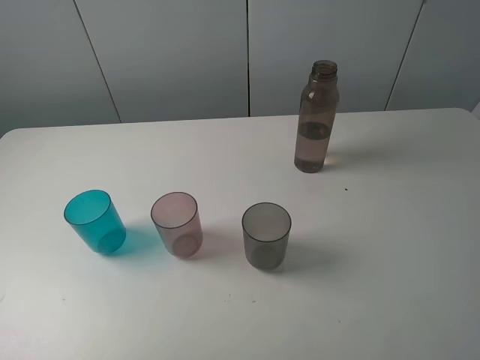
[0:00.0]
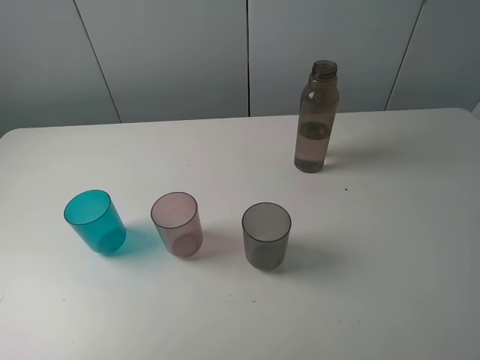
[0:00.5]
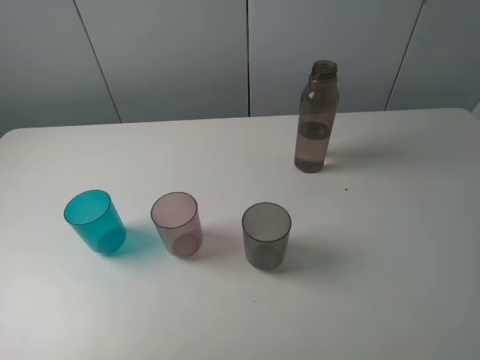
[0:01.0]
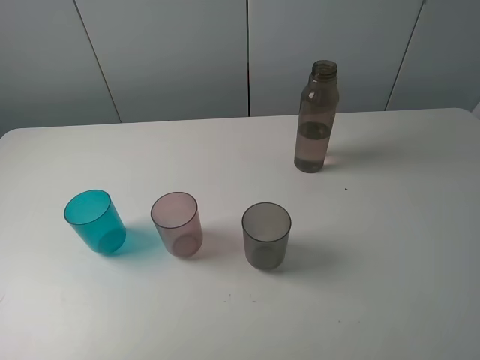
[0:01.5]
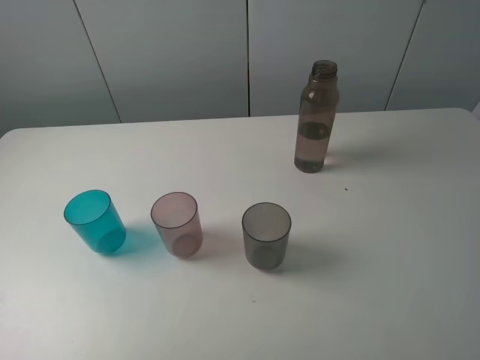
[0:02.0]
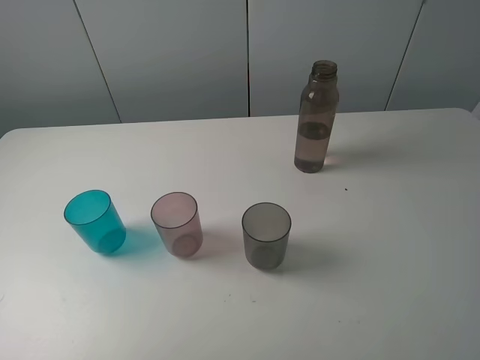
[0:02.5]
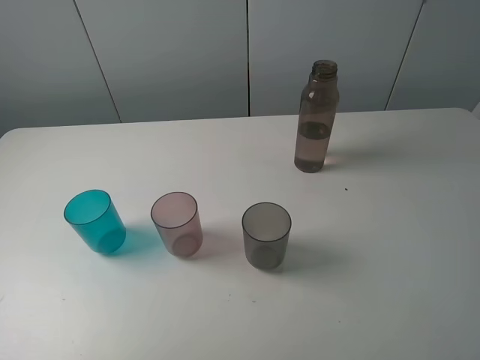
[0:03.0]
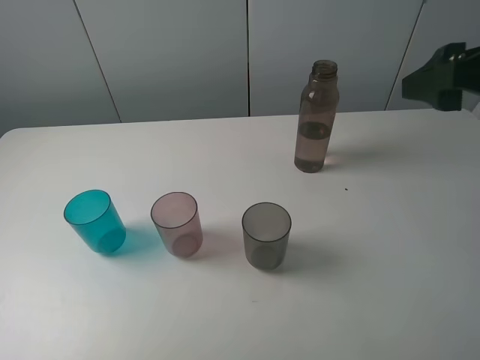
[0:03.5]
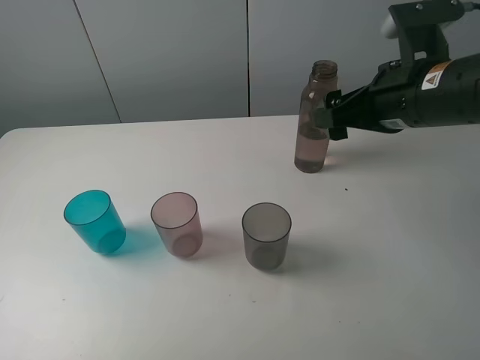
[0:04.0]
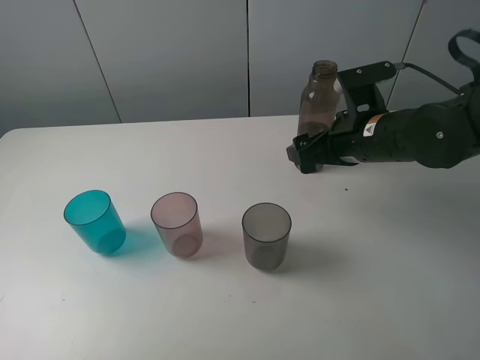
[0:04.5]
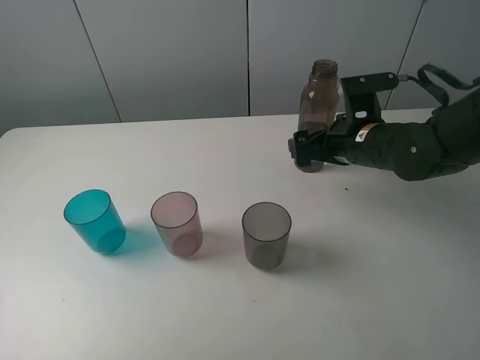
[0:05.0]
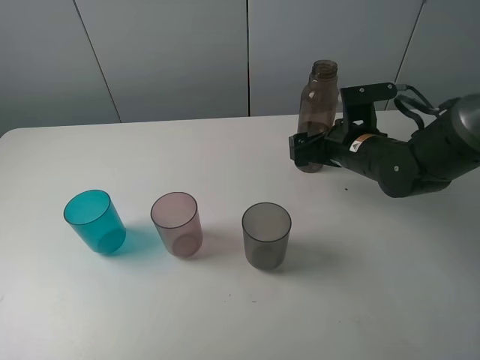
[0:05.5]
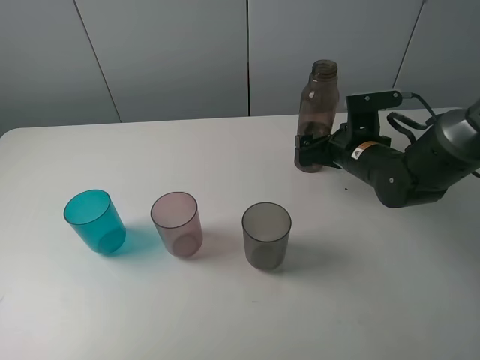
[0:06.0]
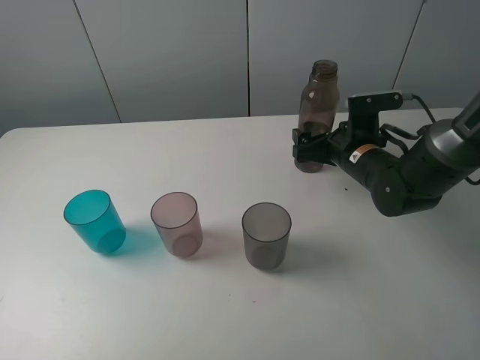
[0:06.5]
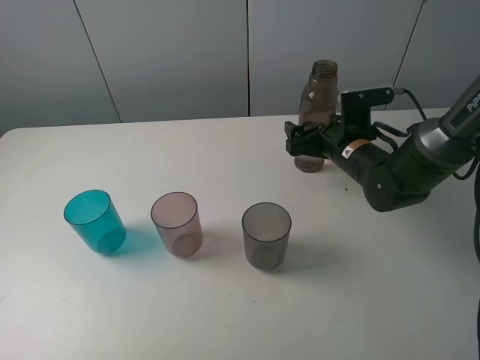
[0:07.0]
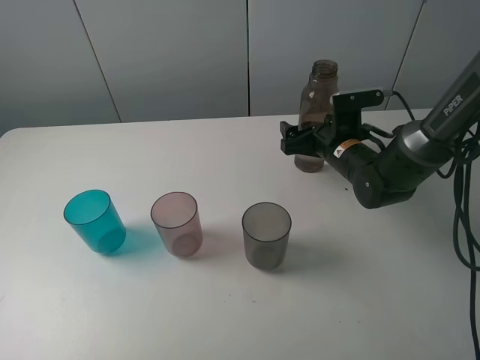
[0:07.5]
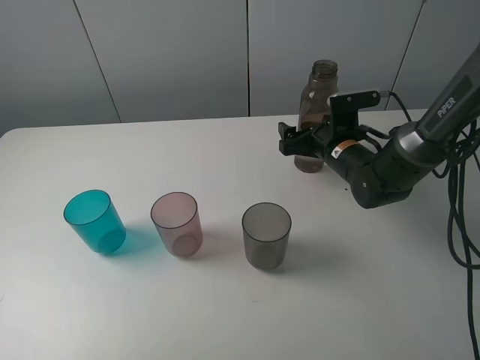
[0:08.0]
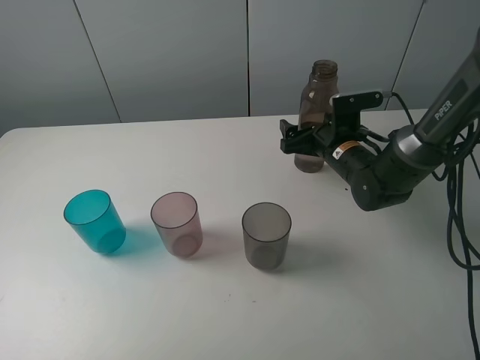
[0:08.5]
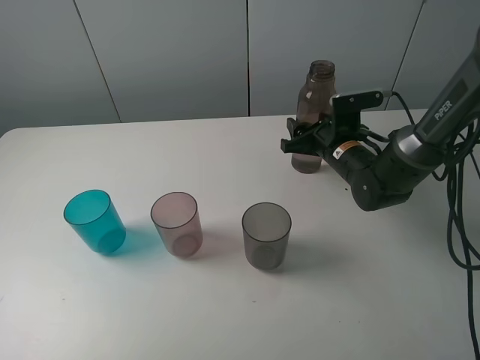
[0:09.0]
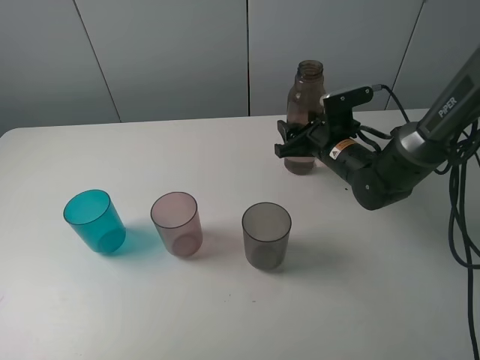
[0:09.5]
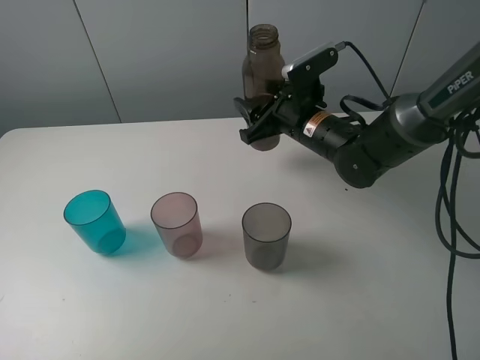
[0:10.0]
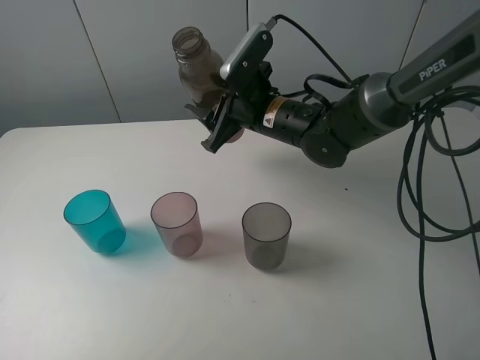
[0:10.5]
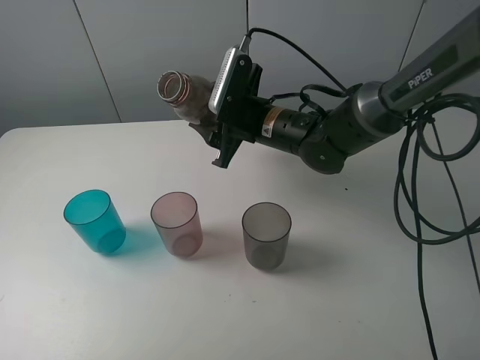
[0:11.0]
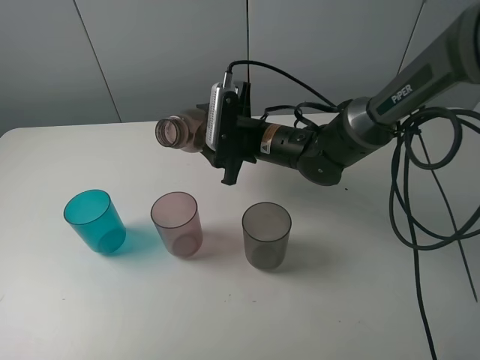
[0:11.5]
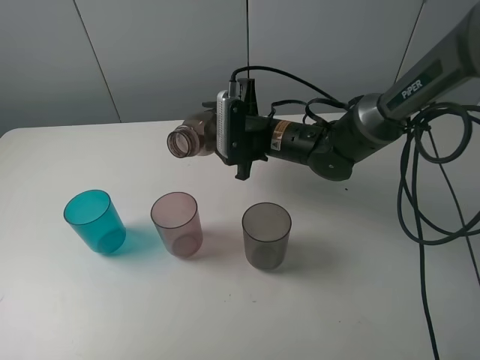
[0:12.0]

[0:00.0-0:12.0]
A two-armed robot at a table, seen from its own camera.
Task of the whole recording: pick up the bottle filled with water and pour water into the middle cup of the three cups.
Step, 0:00.0 to 0:09.0: Grasp the brown bottle with the right gripper.
0:00.0 to 0:02.0: Both grippers stay about where they are.
0:02.0 to 0:04.0: The right gripper is displaced forward and to the left by about 30 cm.
0:04.0 to 0:06.0: The right gripper goes roughly 15 cm downward and forward.
0:06.0 to 0:08.0: The grippers make only small movements.
0:08.0 to 0:10.0: The right gripper travels to the left and upward by about 10 cm, and closes its fingers.

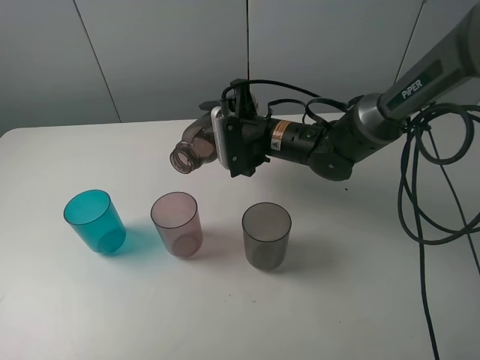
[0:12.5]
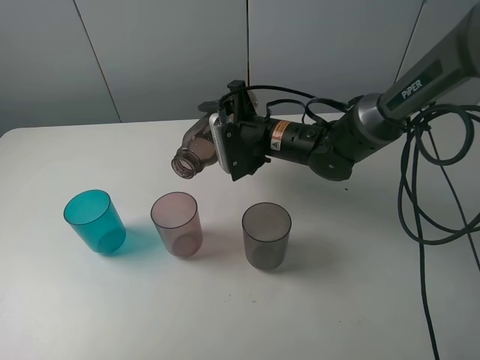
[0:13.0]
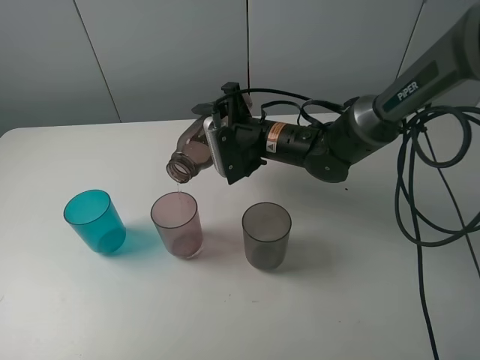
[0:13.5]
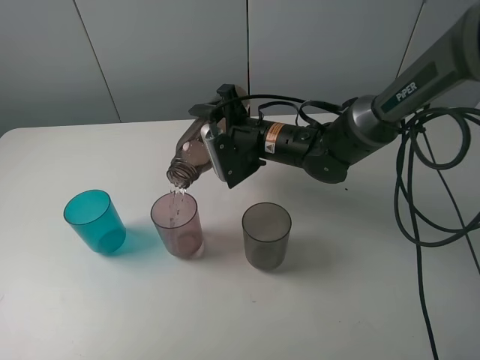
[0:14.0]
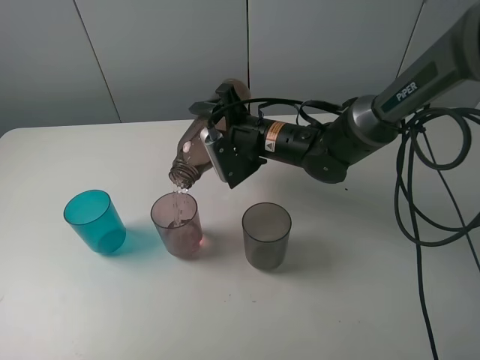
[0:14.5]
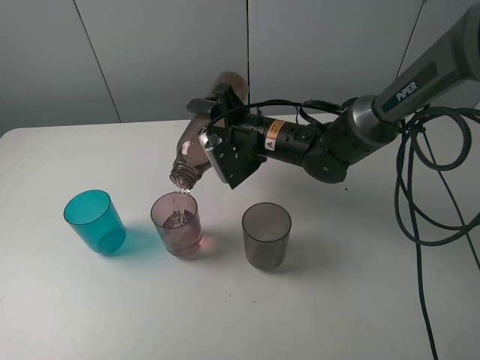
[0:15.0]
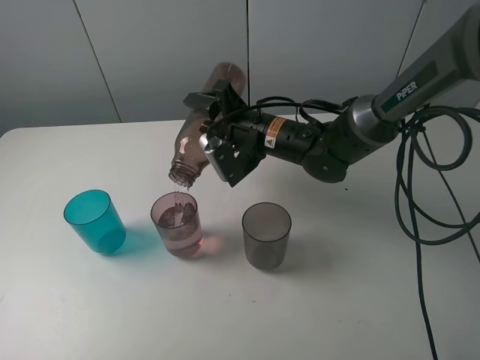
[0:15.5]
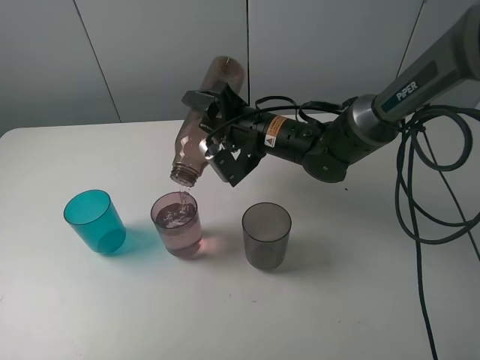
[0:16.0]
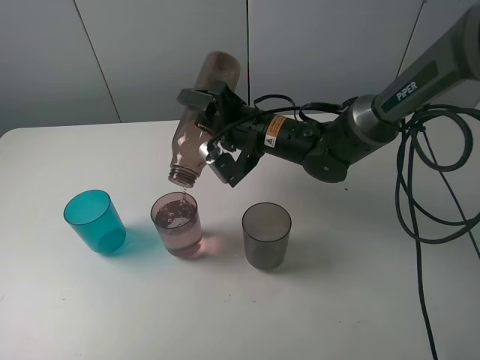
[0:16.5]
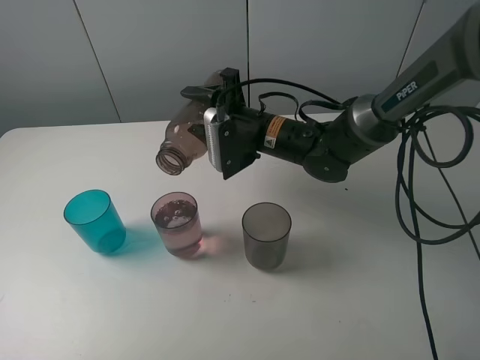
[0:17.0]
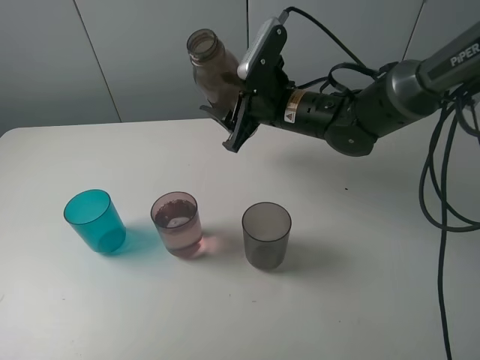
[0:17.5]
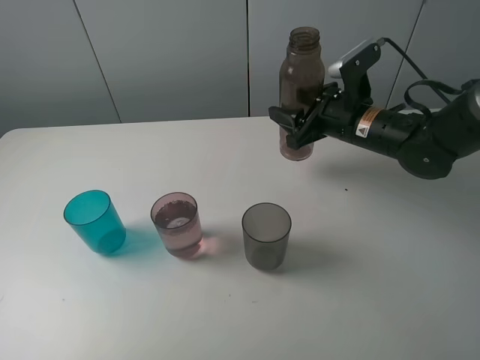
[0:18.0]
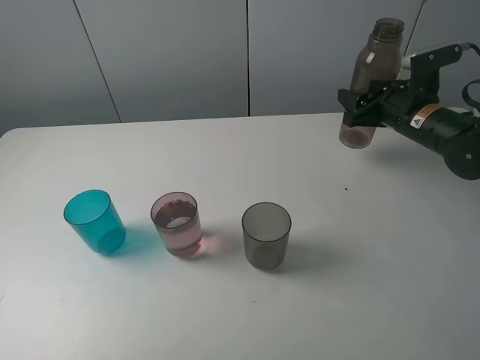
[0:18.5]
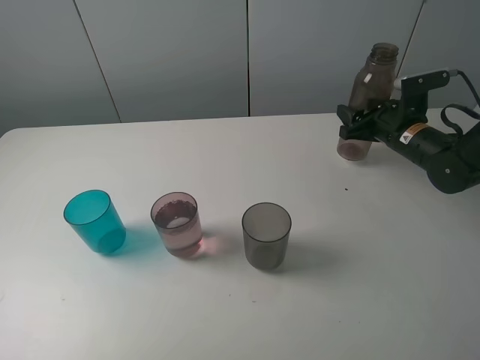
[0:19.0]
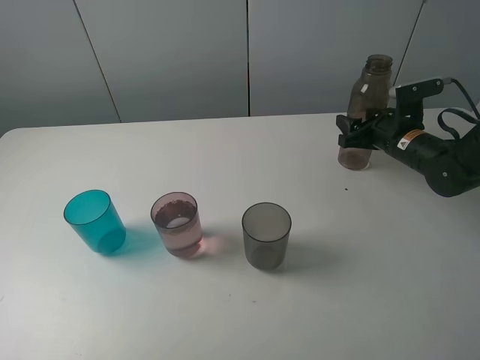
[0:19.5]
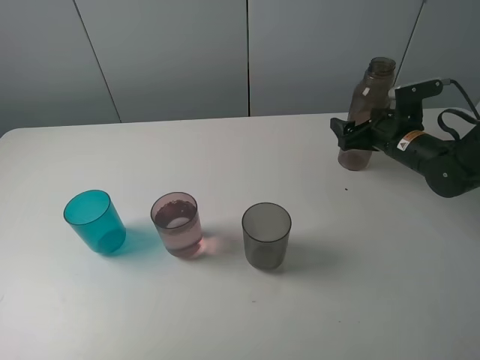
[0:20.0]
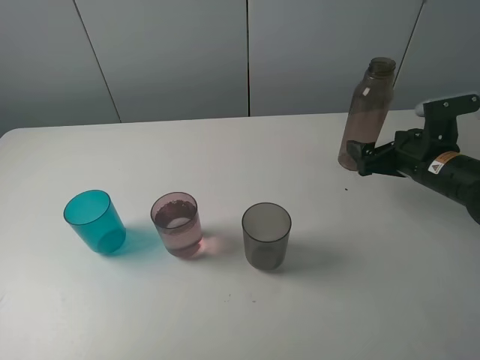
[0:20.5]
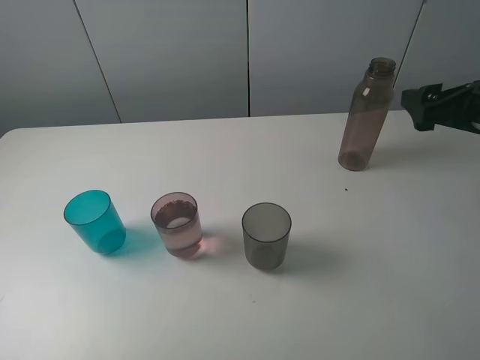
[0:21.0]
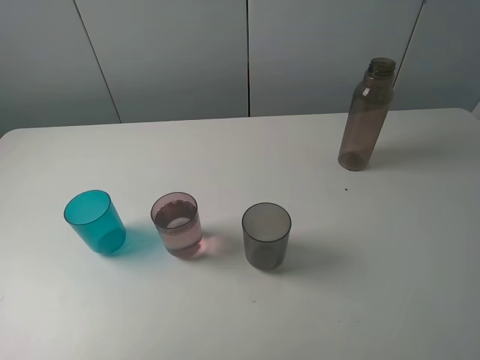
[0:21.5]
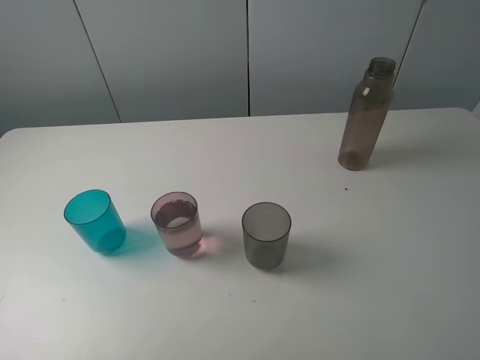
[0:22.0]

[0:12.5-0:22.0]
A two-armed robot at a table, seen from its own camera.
Task of the whole recording: pick up the bottle filled with water and pour water into the middle cup of the three cups.
Step, 0:12.5 to 0:17.5: Pour water from brown bottle to red cup with the right gripper.
Step, 0:18.0 to 0:20.0: Place the brown bottle with the right gripper.
0:12.5 to 0:14.5: The grippers make only small movements.
0:14.5 to 0:16.5: There are only small adjustments of the grippers.
0:16.5 to 0:18.0: The right gripper is displaced to the right by roughly 15 cm.
0:18.0 to 0:20.0: The right gripper goes roughly 10 cm to the right and downward, and opens.
0:20.0 to 0:22.0: The right gripper goes about 50 cm backward and upward.
